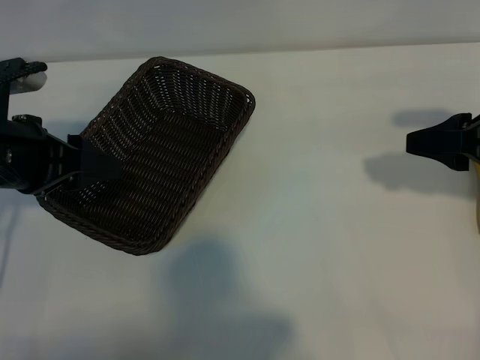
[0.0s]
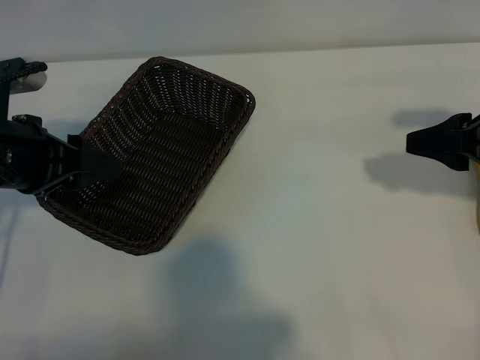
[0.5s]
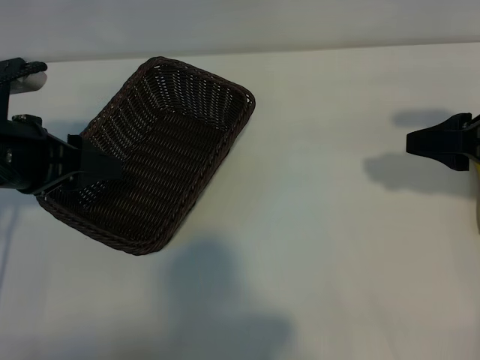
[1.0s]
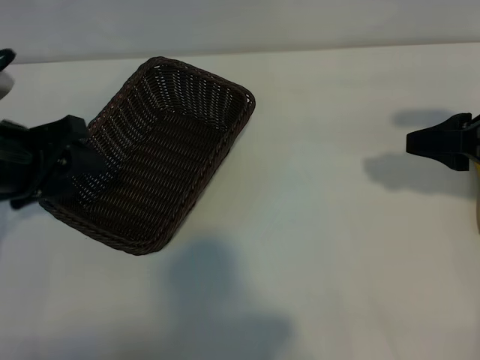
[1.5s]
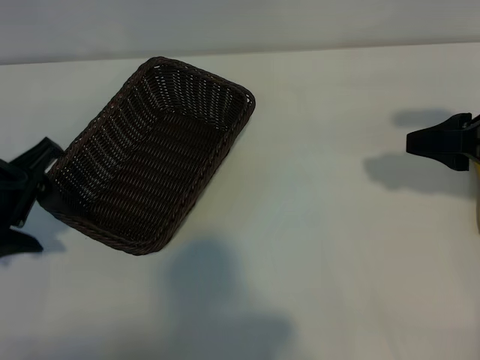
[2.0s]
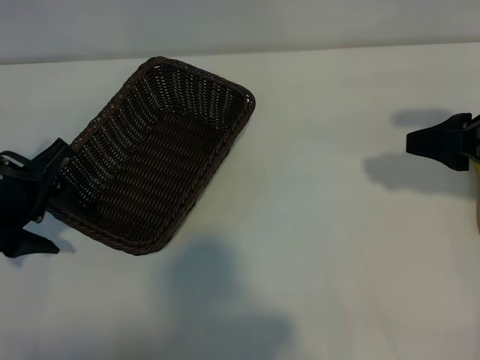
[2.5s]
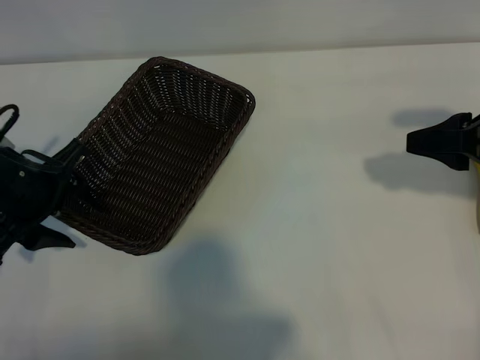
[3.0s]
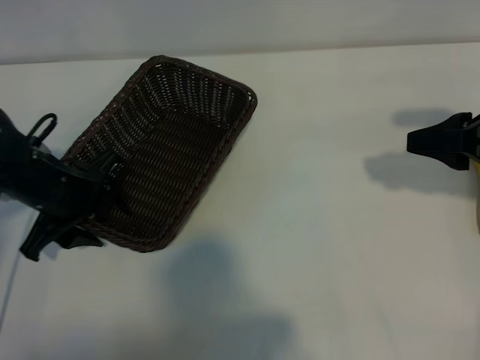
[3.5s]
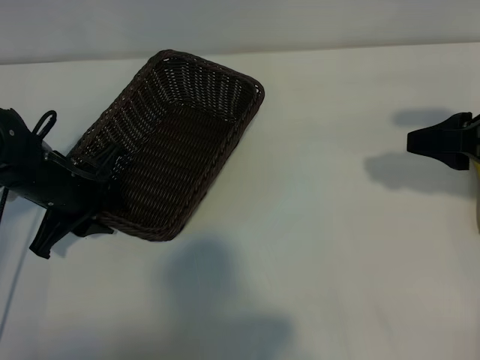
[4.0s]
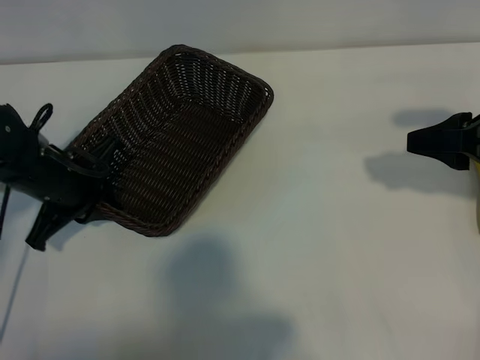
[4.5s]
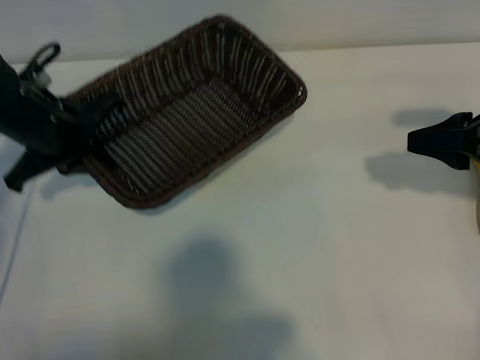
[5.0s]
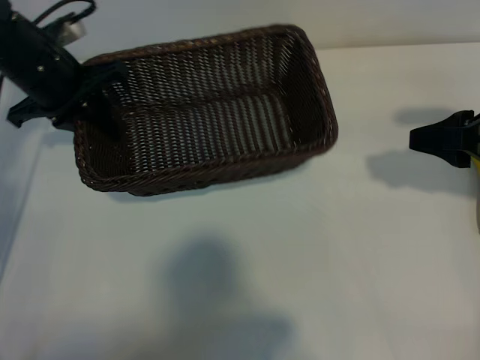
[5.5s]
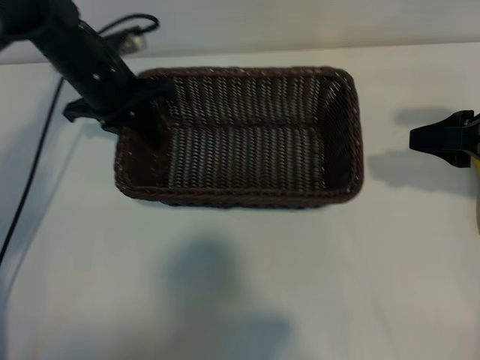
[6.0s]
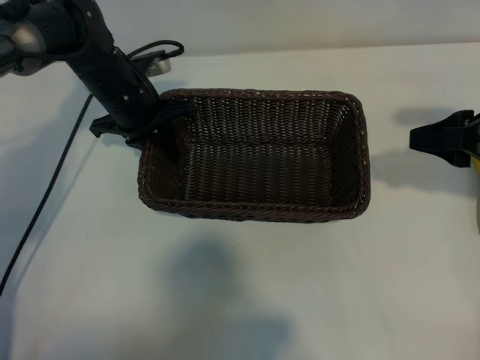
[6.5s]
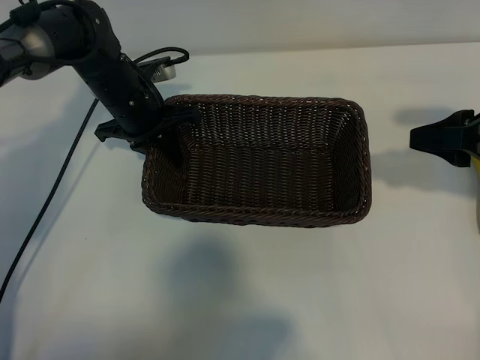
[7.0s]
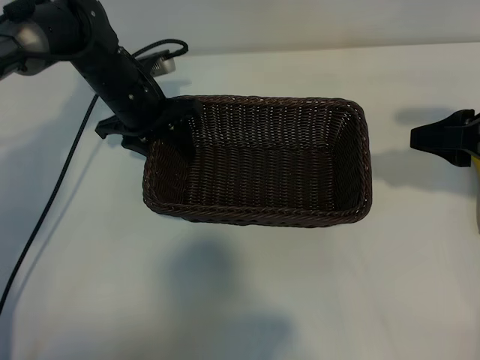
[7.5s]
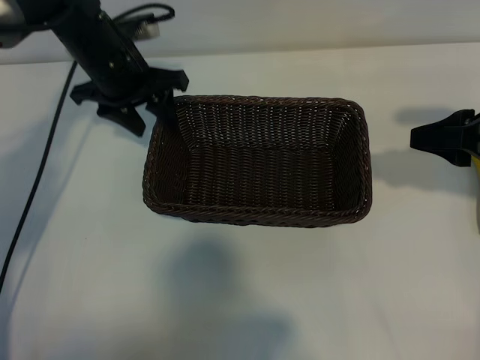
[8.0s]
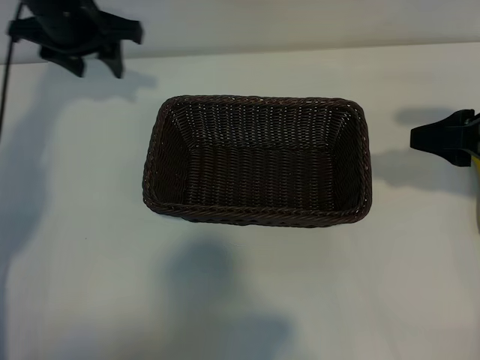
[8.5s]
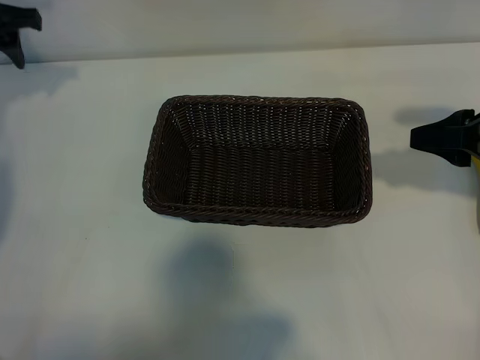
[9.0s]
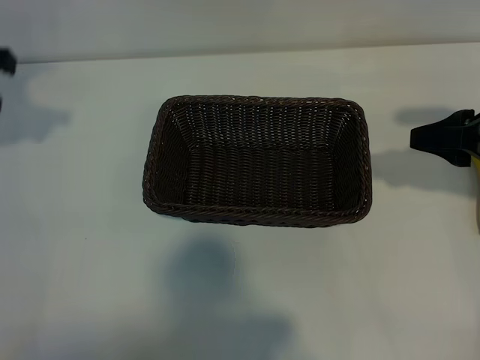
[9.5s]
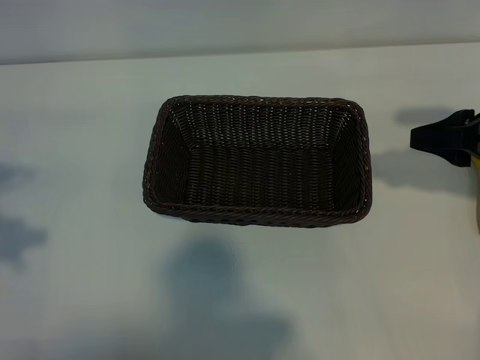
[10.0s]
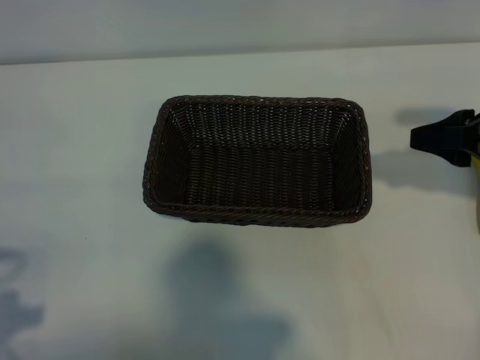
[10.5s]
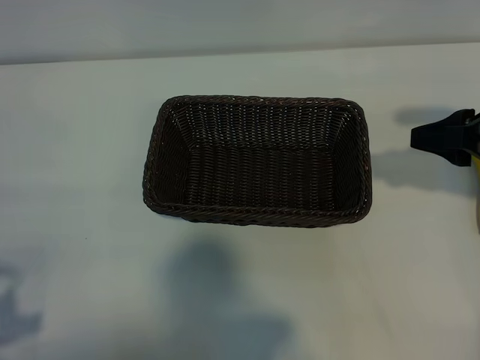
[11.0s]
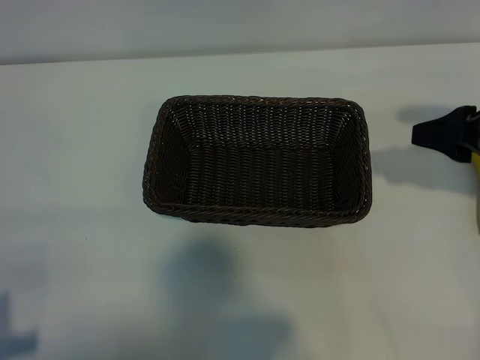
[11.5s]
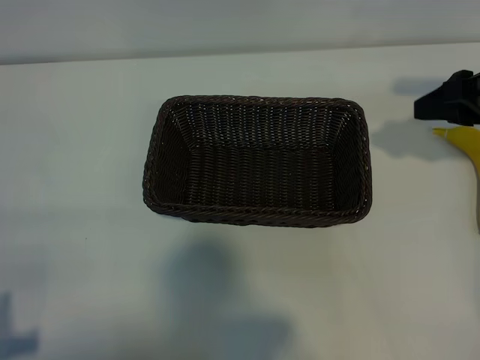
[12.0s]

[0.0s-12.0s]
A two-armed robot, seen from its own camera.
Task of the whole recording: pick up the banana and put it into the basket.
Step, 1.5s to 4.0s: Grasp the basket with the left gripper.
Step, 4.5s to 7.5s: Place the basket in the center of the table with the left gripper.

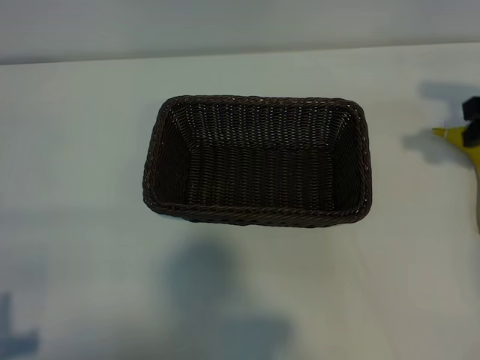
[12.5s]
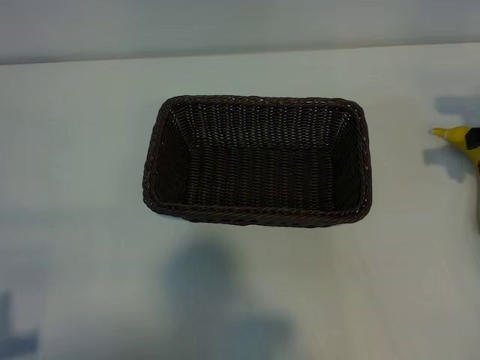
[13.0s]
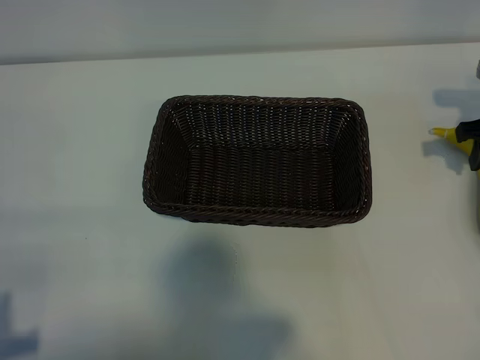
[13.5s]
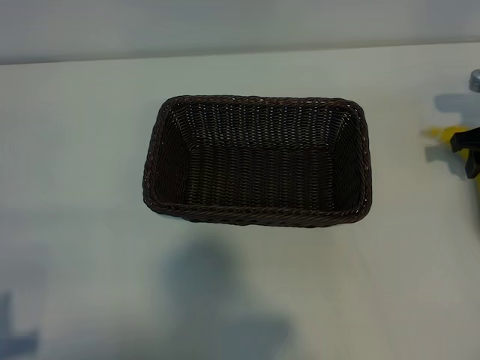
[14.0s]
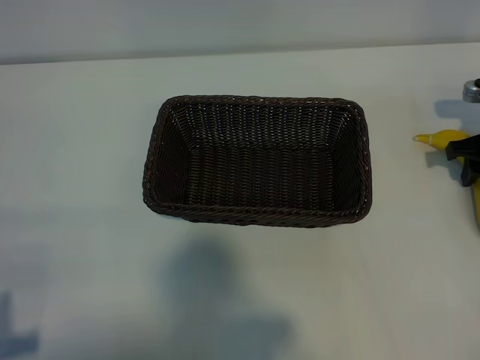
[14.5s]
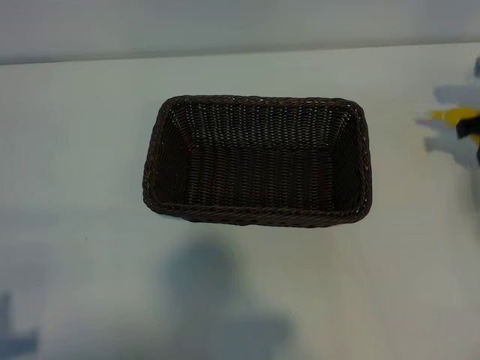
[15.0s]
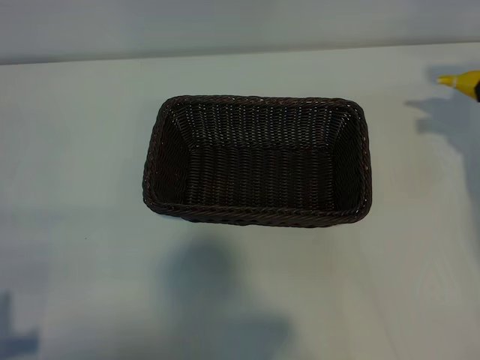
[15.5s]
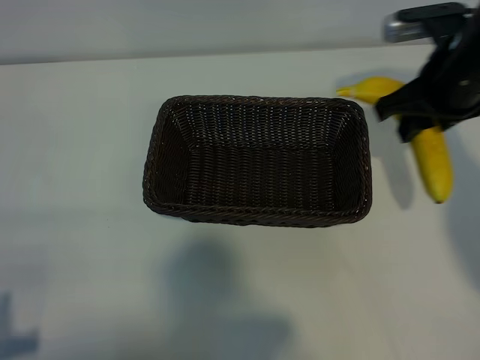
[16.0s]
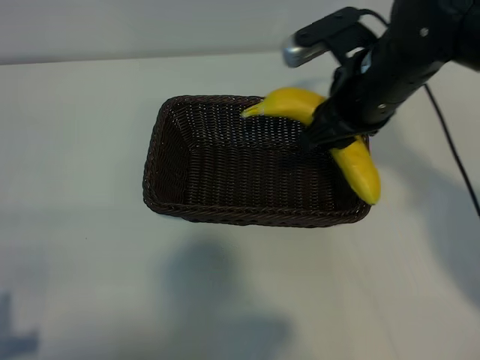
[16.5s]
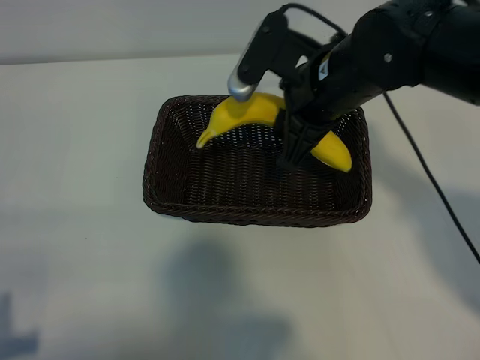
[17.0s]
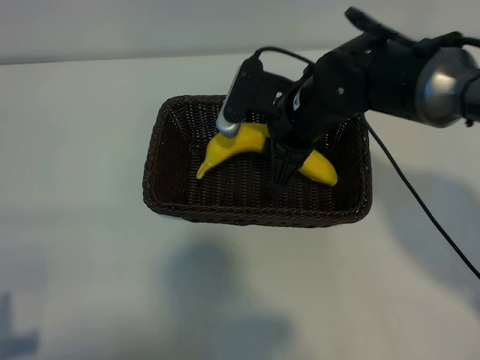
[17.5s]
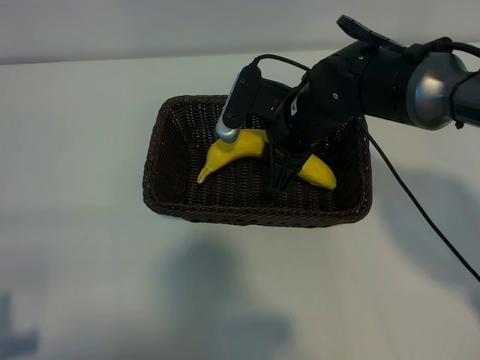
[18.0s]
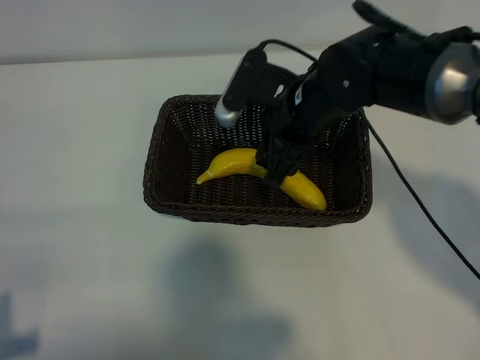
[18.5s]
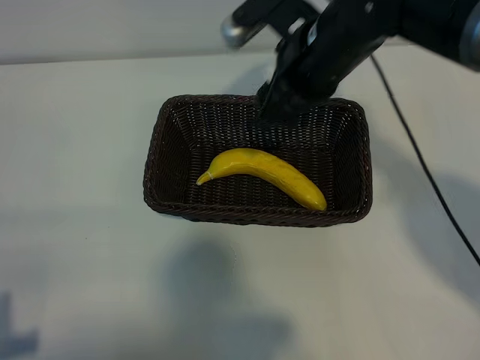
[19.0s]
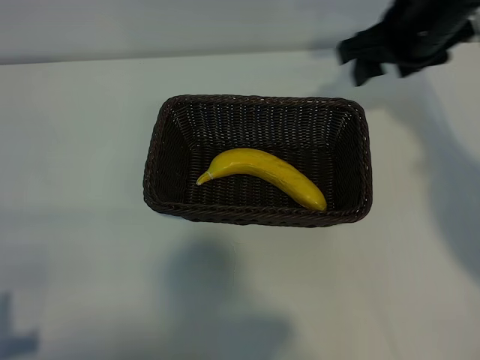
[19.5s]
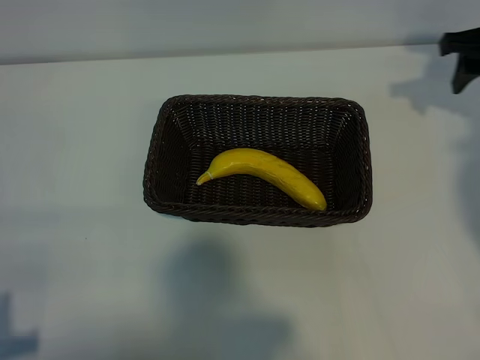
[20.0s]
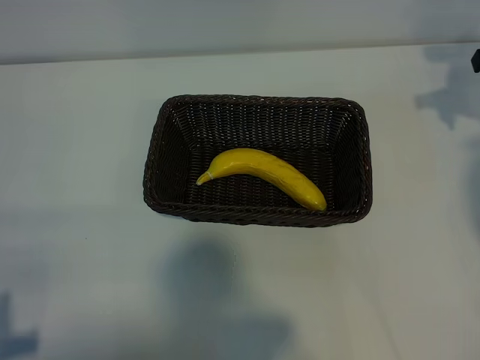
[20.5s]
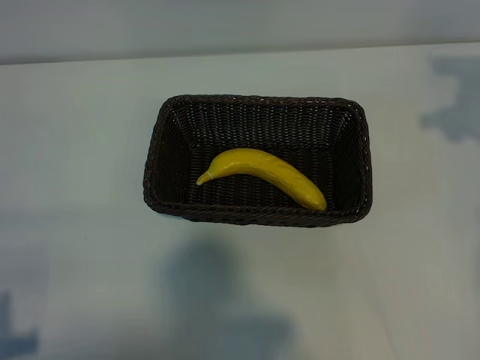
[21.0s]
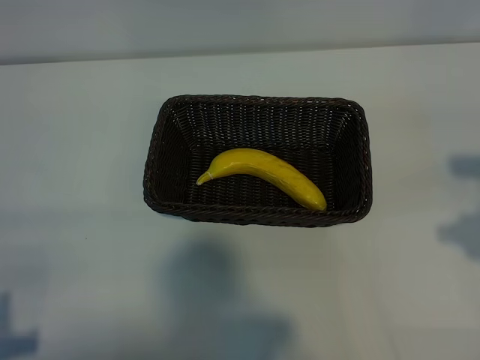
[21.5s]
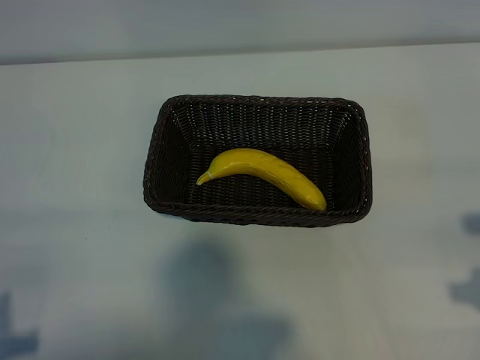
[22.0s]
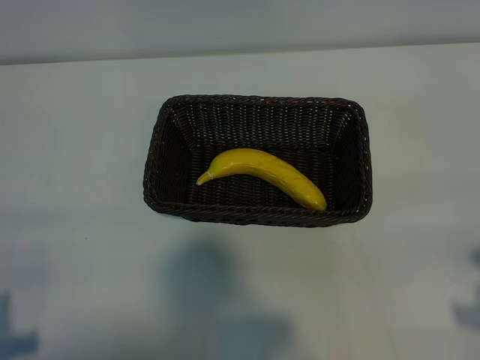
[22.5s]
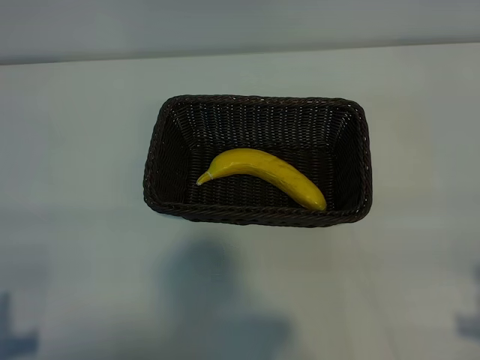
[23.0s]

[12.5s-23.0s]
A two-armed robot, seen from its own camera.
Task of the whole recording: pick up the banana and put it into the basket.
Step, 12.5s to 14.5s: Grasp the banana with right gripper.
Step, 15.0s to 18.5s: Place the banana in the basket with right gripper.
